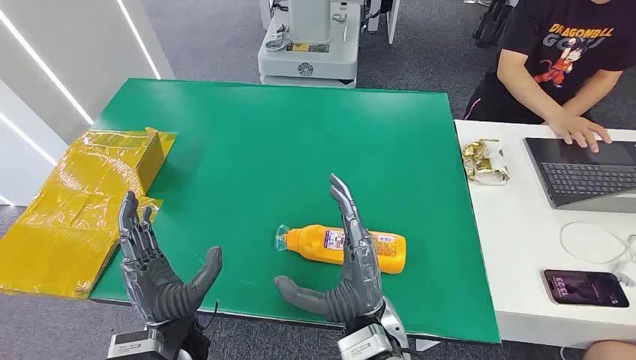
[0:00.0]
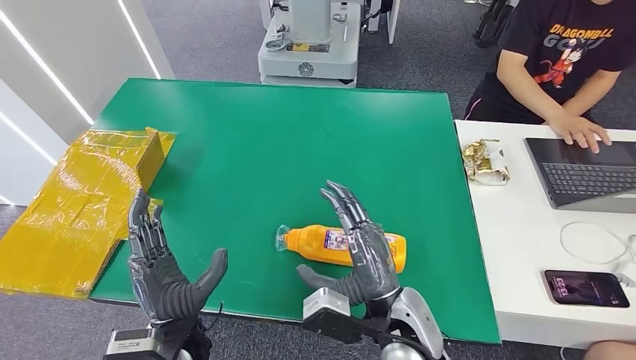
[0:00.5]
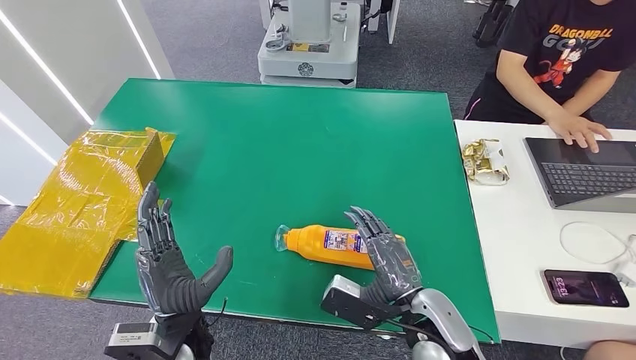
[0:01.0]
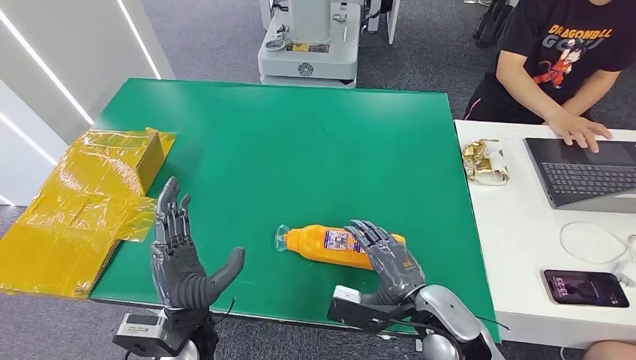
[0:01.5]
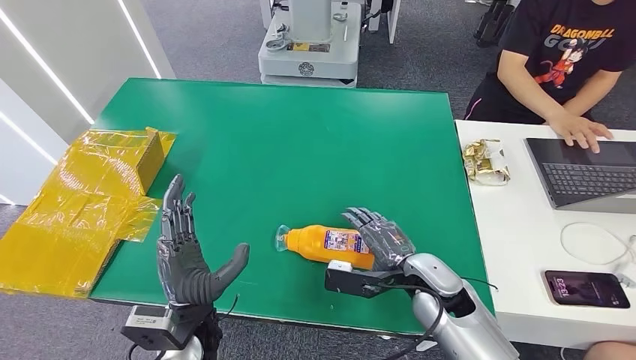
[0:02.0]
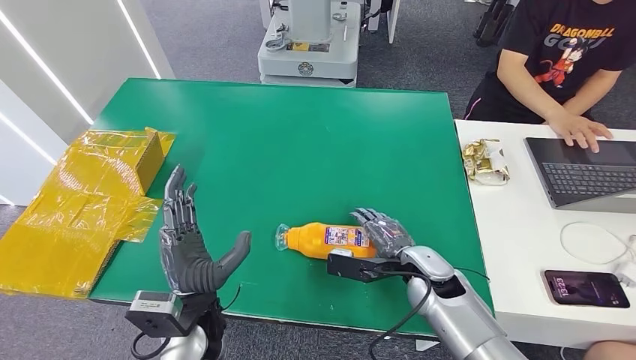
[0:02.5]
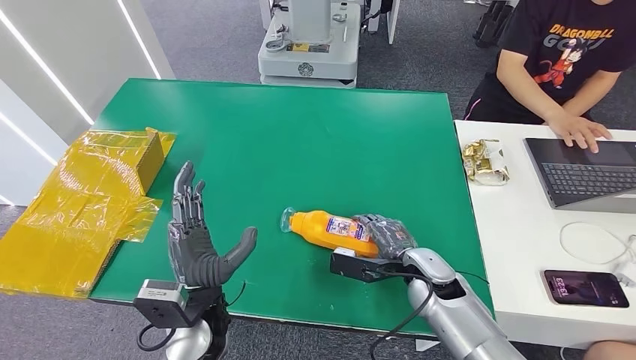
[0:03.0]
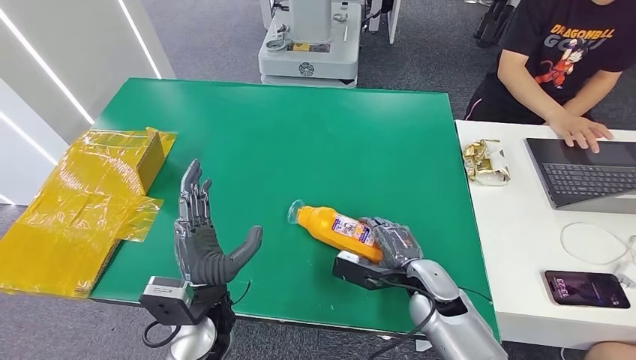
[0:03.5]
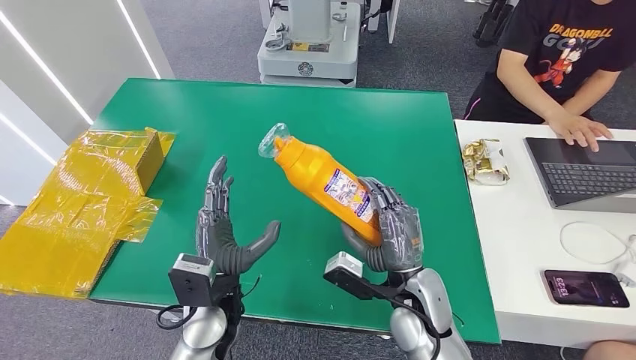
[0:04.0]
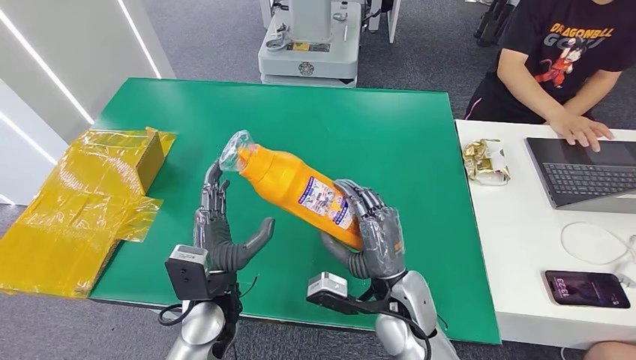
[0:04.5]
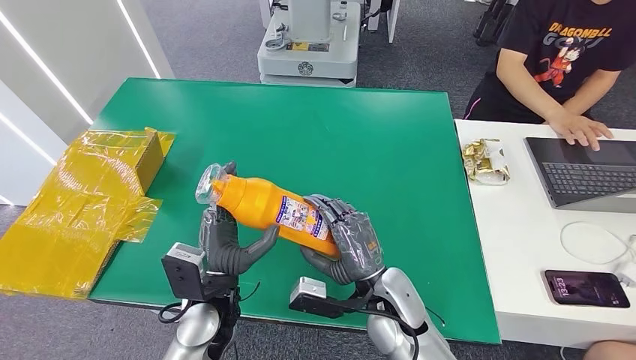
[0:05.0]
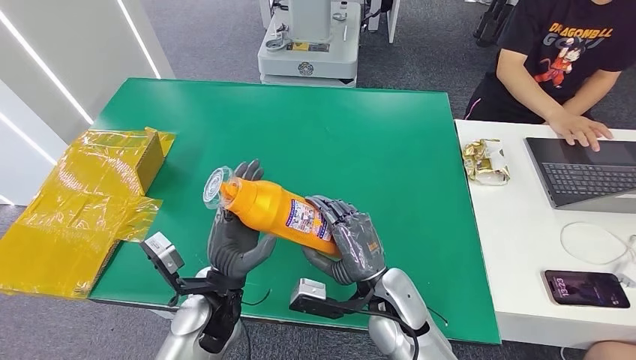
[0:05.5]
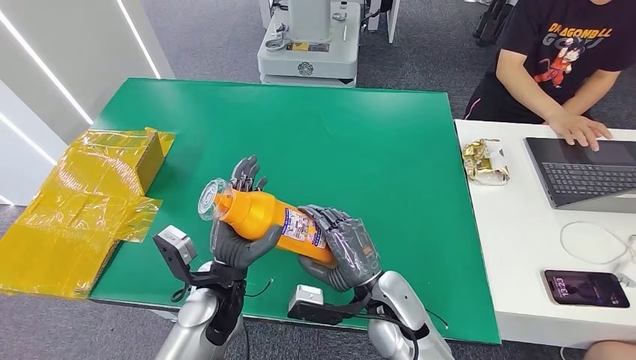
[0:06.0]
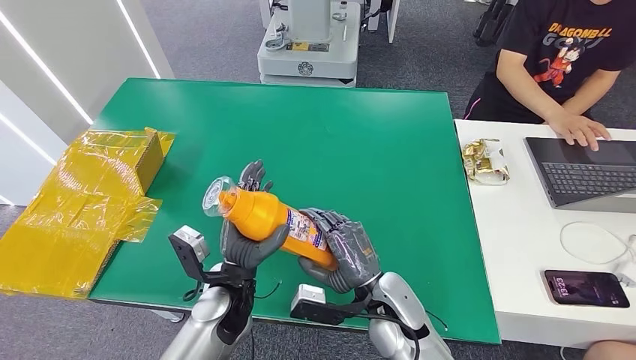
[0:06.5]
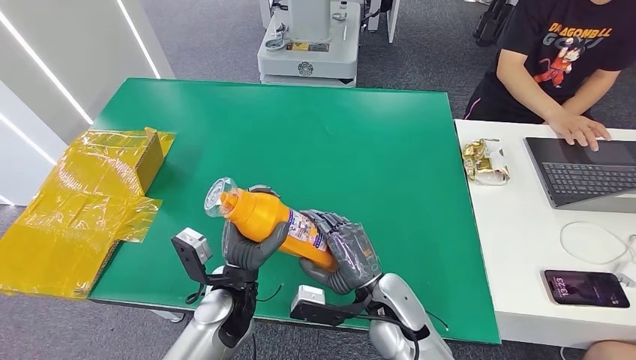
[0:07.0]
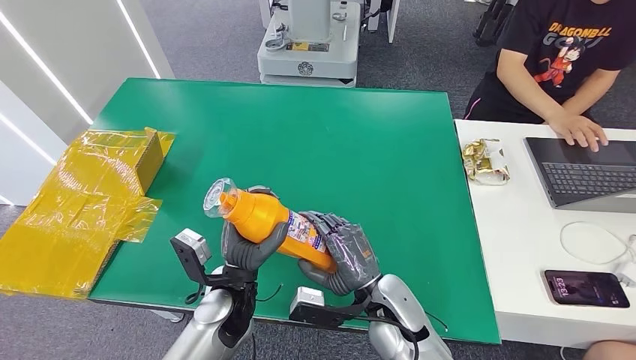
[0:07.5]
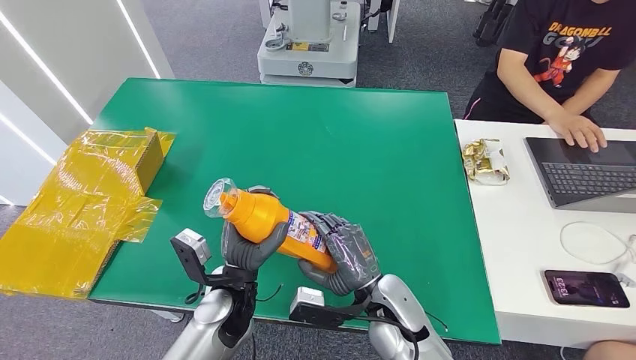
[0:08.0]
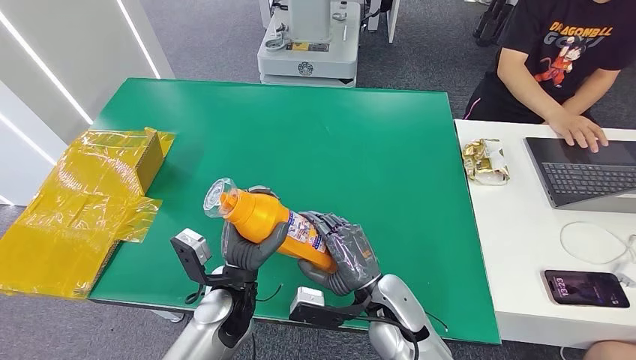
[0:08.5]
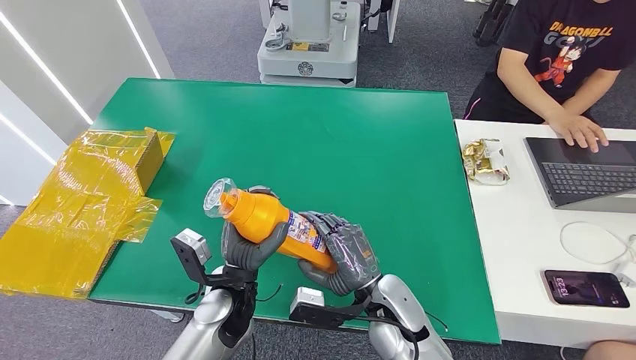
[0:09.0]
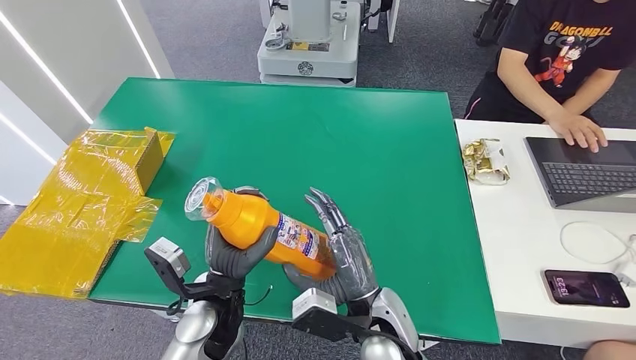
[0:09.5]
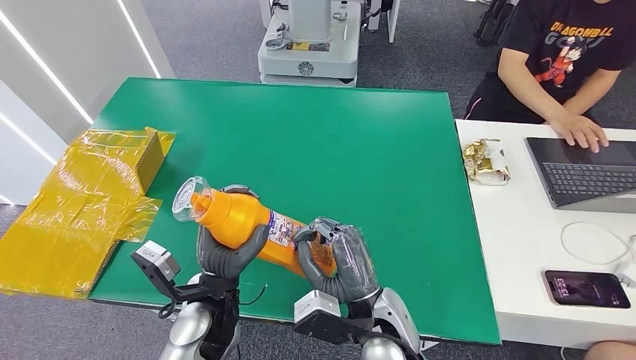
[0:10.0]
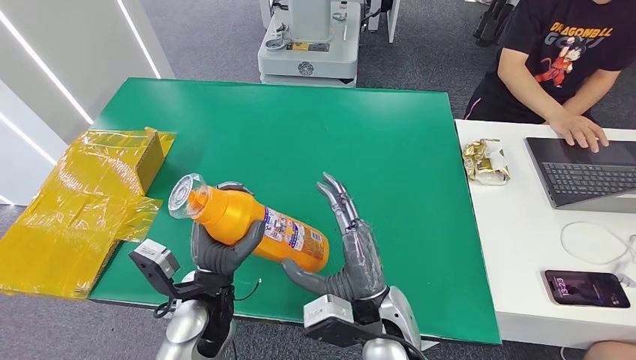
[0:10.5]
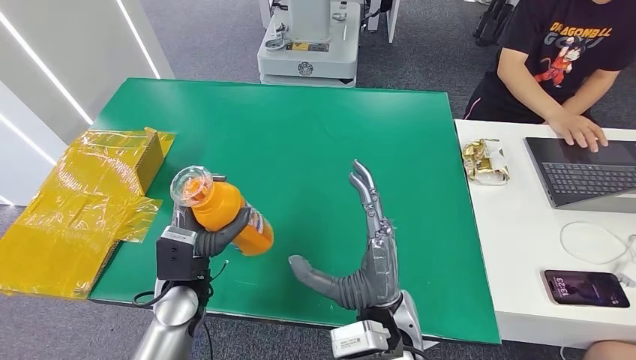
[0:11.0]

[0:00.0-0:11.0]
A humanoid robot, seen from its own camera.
Step, 0:00.0 to 0:03.5: Pick up the bottle from the table.
0:02.0 to 0:03.5: The hands move only a little.
0:03.5 to 0:05.5: The right hand shifts some 10 cm to the left.
0:05.5 to 0:07.5: The hands stay close to where they were, moving slightly.
0:07.5 to 0:09.0: Both hands stay about where they are.
0:09.0 to 0:11.0: The left hand moves to the left, about 10 cm, while the right hand is displaced upward by some 5 cm.

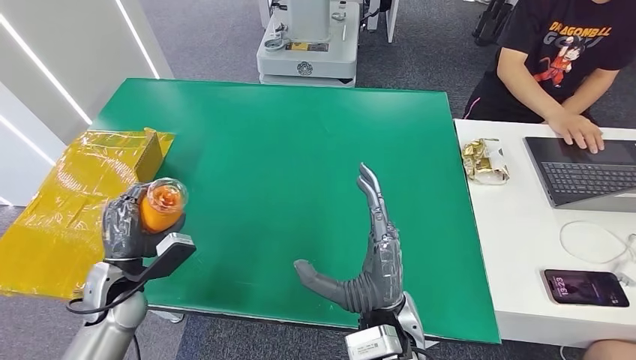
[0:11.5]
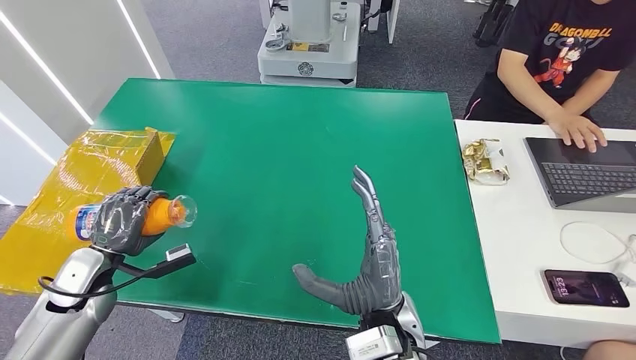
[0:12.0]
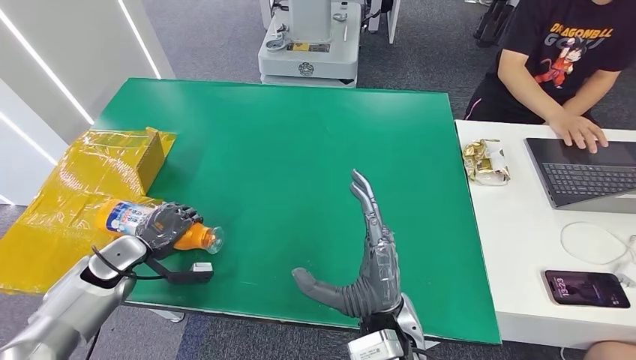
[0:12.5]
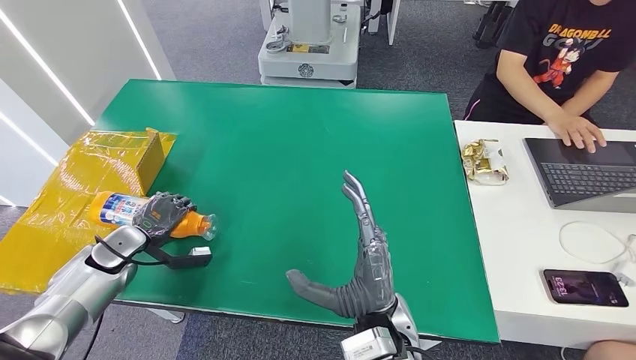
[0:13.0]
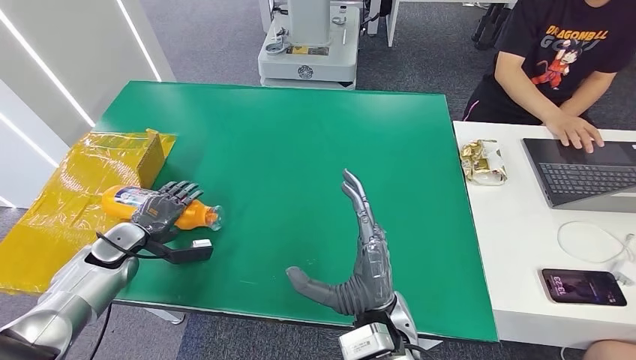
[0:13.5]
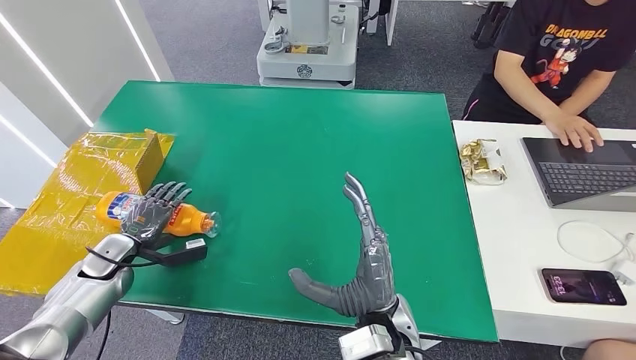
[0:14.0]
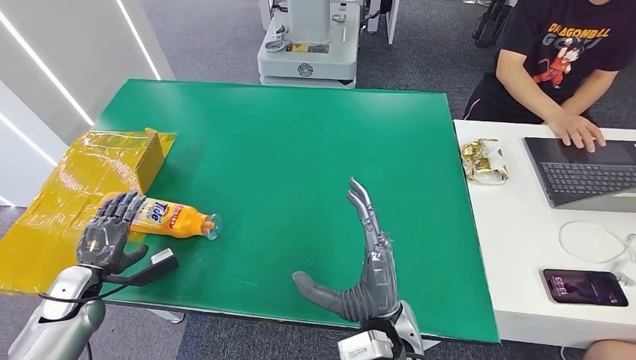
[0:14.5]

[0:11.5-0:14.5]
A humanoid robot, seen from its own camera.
Step, 0:11.5 to 0:14.5: Turn the bottle to the front side.
0:11.5 to 0:13.0: The left hand heads to the left and forward, covering approximately 10 cm.
0:13.0 to 0:14.5: The left hand travels backward by roughly 10 cm.

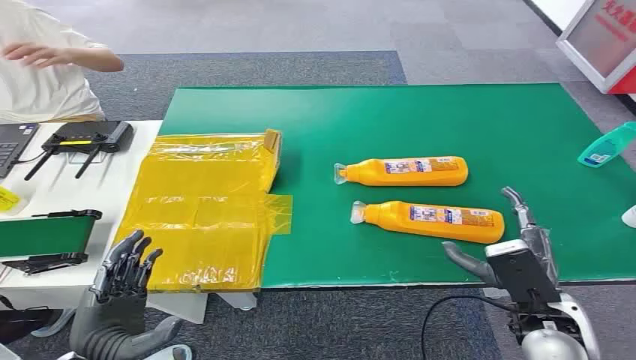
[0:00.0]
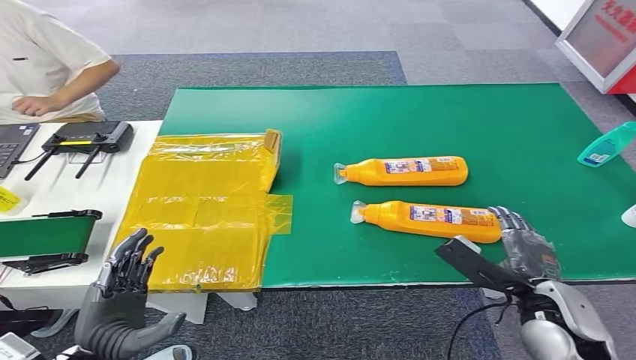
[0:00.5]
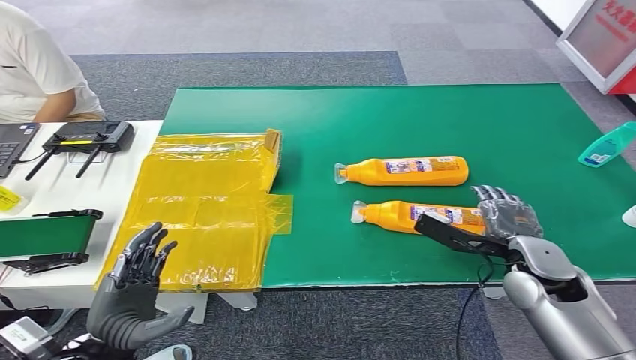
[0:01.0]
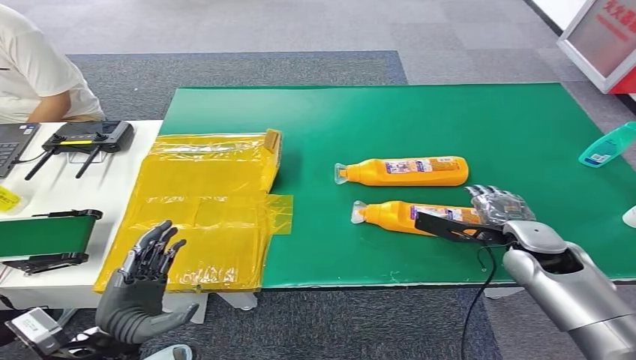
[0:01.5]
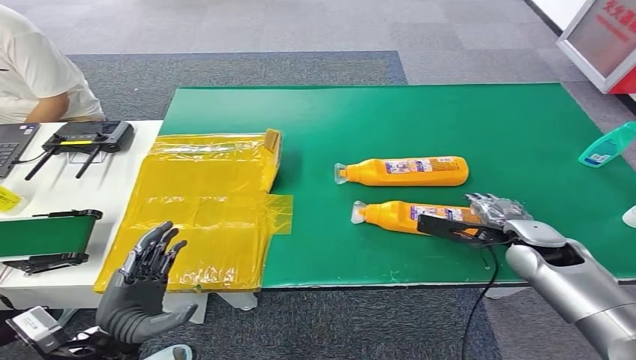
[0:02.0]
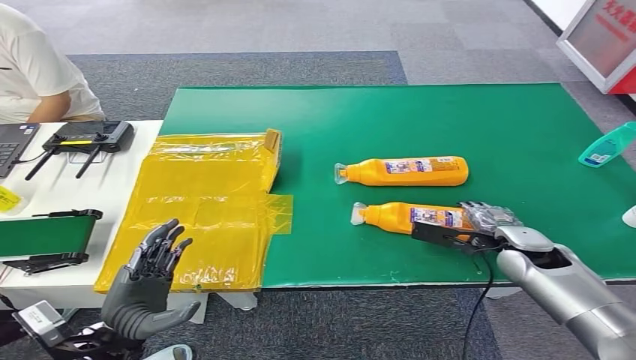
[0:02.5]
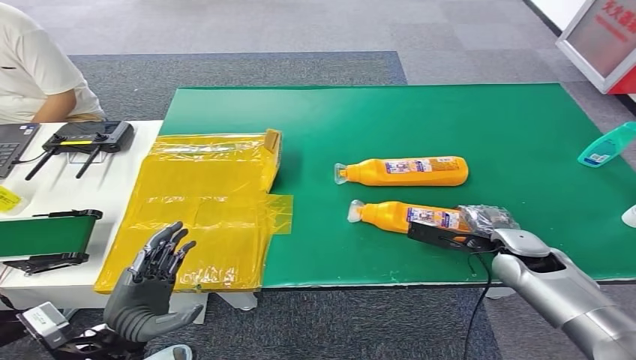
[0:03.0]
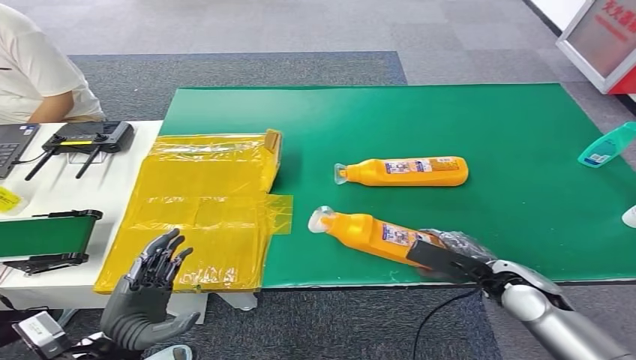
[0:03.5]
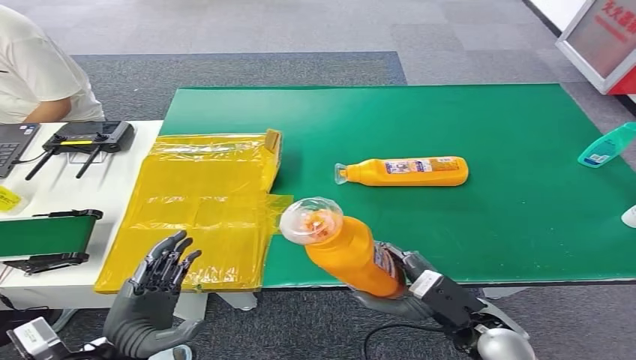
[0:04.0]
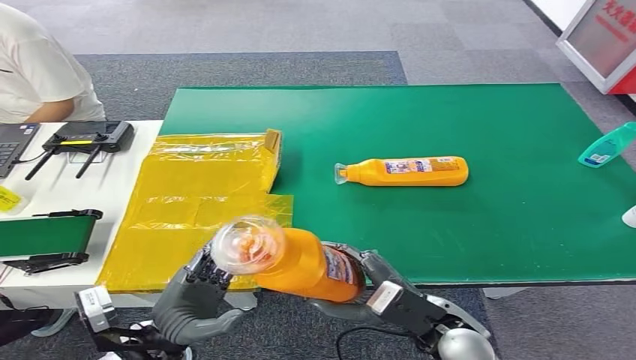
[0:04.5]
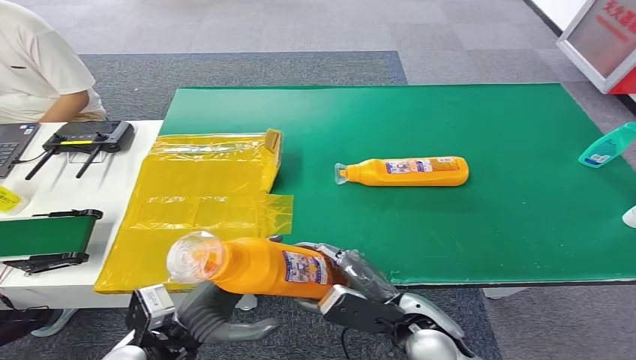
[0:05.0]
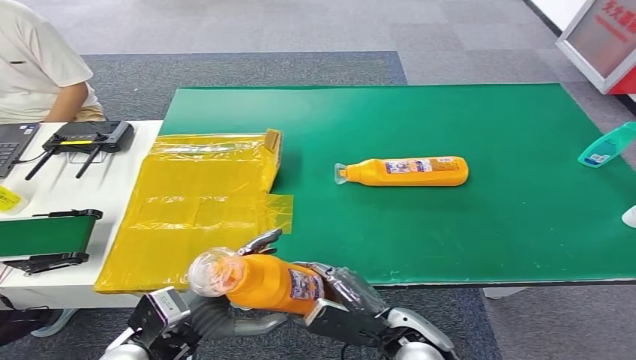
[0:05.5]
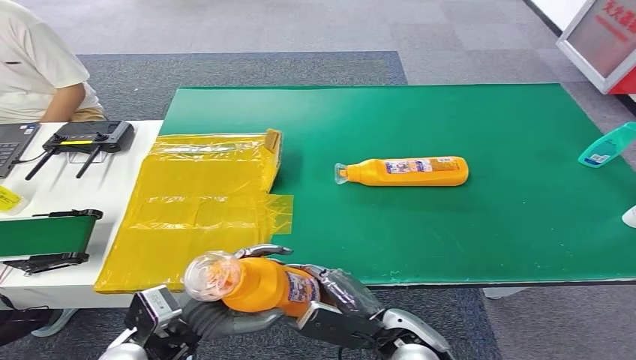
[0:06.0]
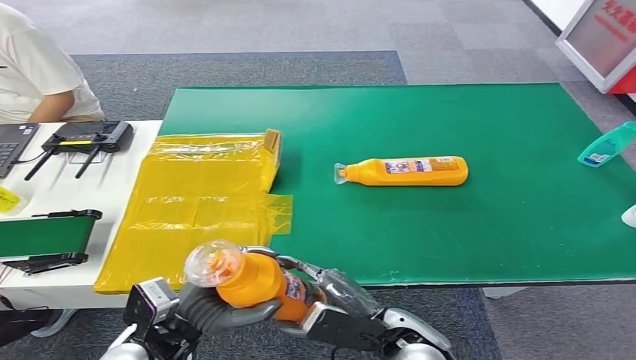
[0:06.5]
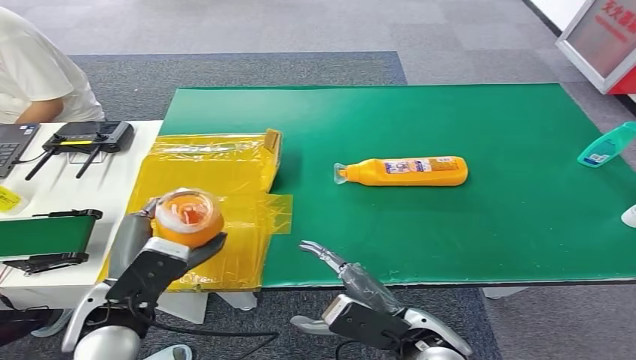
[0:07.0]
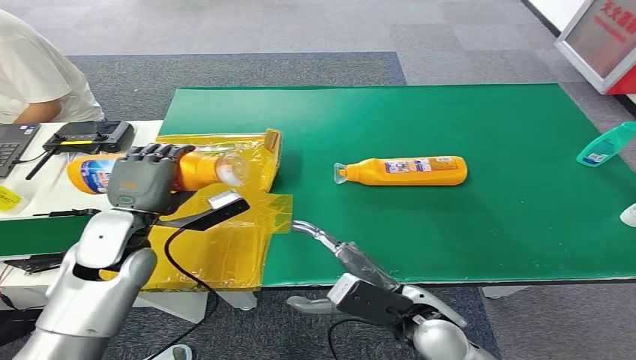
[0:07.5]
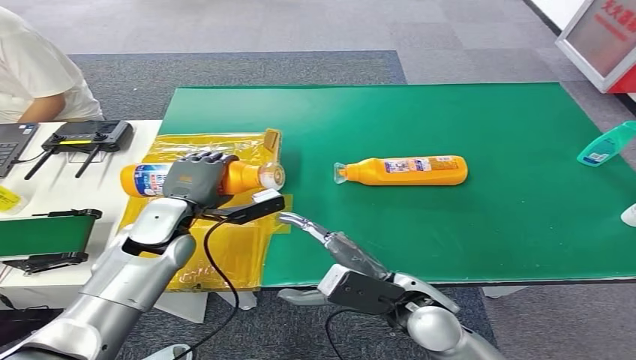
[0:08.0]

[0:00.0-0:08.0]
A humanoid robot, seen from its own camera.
Step, 0:00.0 to 0:05.0: Pick up the bottle from the table.
0:02.0 to 0:04.0: The right hand is displaced backward and to the left by about 20 cm.
0:04.0 to 0:06.0: The right hand is displaced to the left by roughly 10 cm; the left hand moves to the right, some 5 cm.
